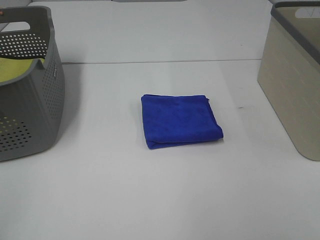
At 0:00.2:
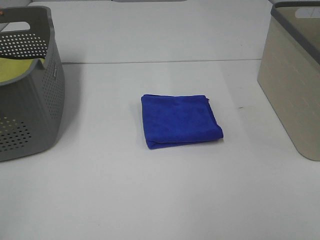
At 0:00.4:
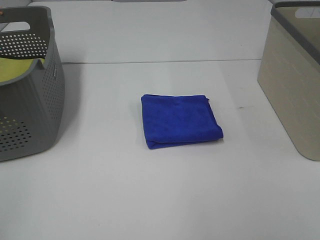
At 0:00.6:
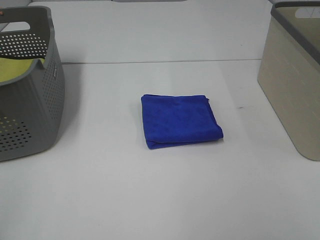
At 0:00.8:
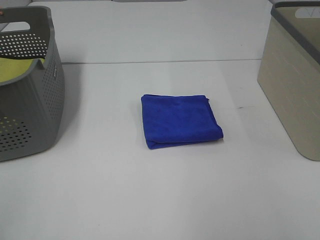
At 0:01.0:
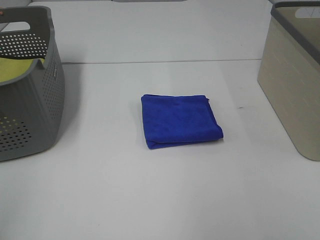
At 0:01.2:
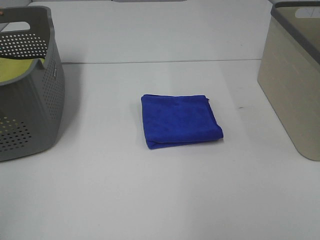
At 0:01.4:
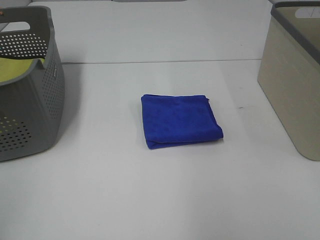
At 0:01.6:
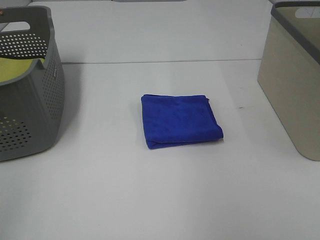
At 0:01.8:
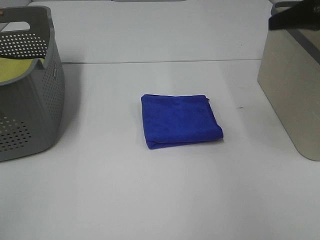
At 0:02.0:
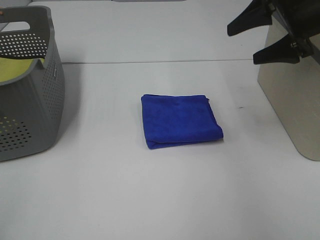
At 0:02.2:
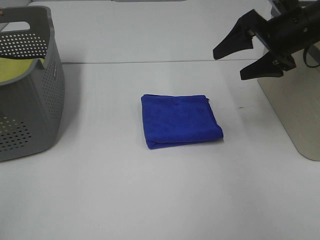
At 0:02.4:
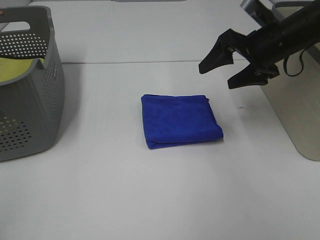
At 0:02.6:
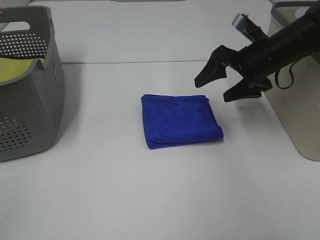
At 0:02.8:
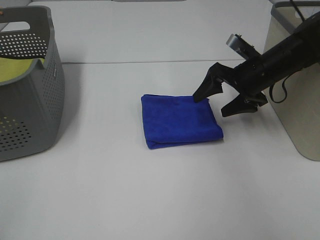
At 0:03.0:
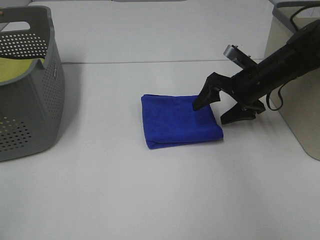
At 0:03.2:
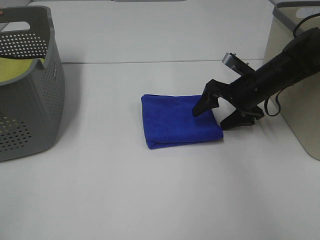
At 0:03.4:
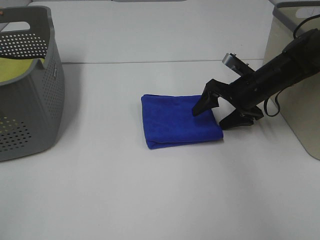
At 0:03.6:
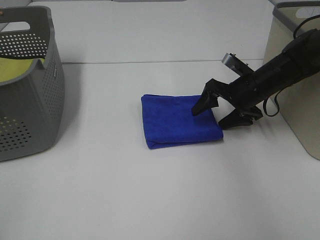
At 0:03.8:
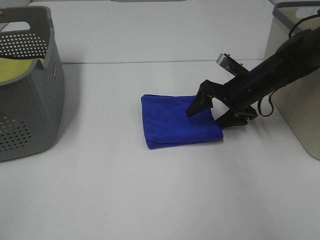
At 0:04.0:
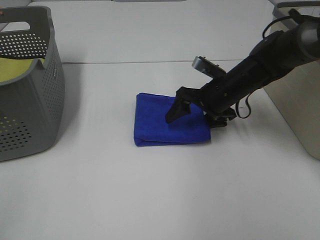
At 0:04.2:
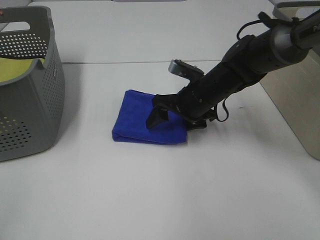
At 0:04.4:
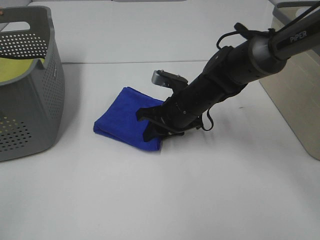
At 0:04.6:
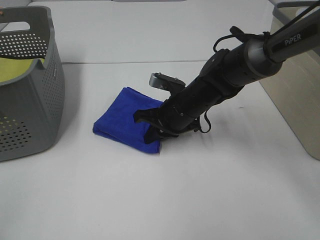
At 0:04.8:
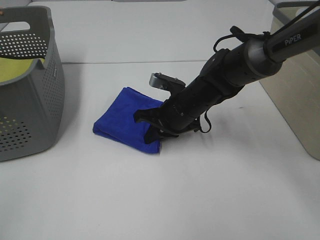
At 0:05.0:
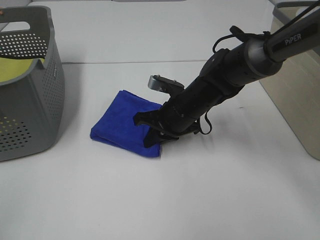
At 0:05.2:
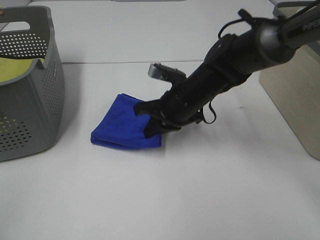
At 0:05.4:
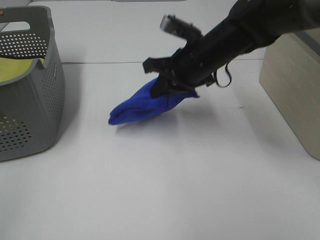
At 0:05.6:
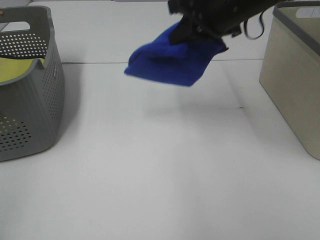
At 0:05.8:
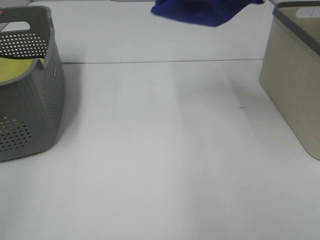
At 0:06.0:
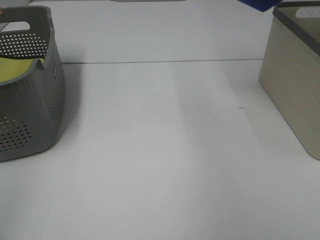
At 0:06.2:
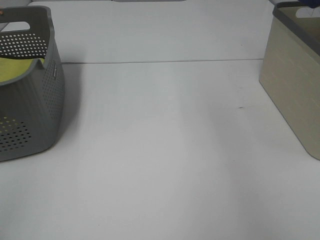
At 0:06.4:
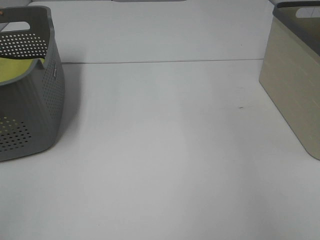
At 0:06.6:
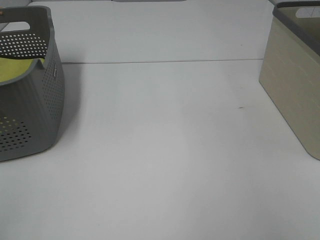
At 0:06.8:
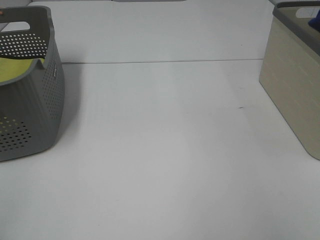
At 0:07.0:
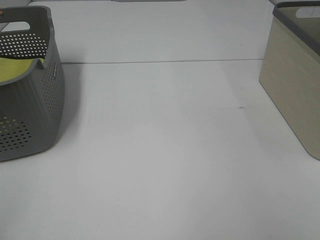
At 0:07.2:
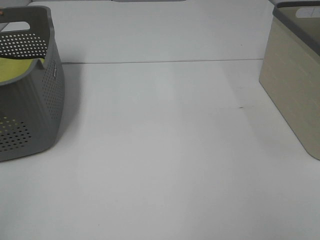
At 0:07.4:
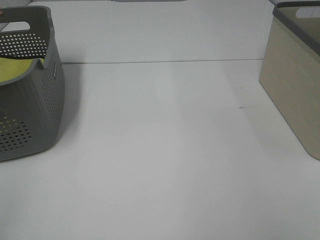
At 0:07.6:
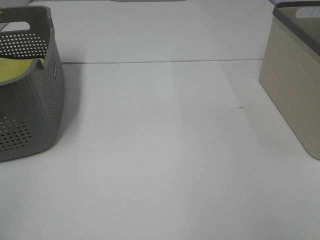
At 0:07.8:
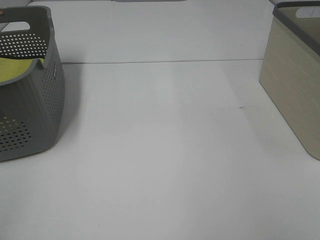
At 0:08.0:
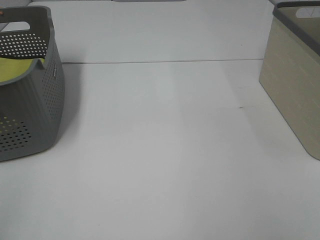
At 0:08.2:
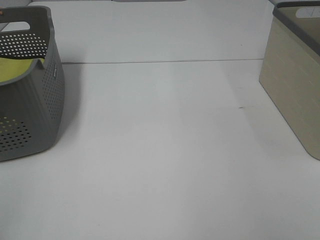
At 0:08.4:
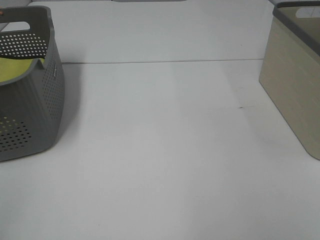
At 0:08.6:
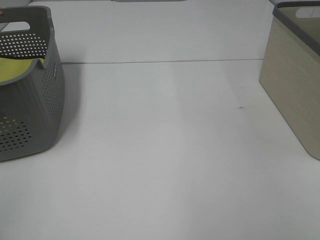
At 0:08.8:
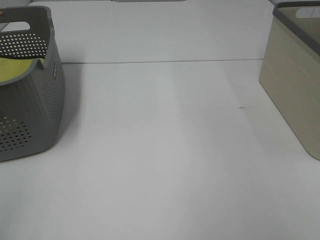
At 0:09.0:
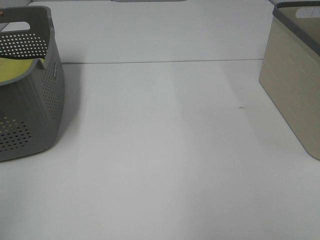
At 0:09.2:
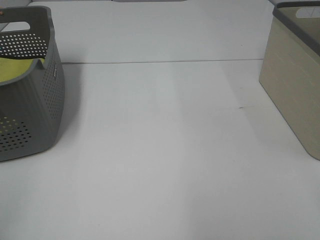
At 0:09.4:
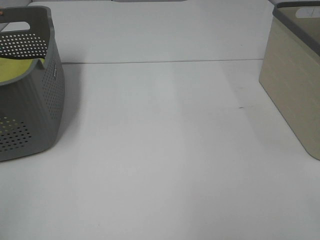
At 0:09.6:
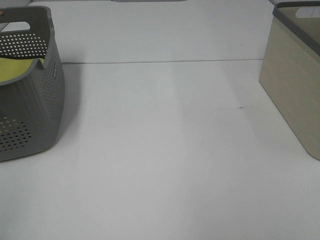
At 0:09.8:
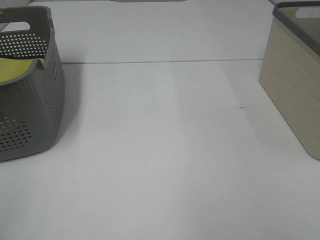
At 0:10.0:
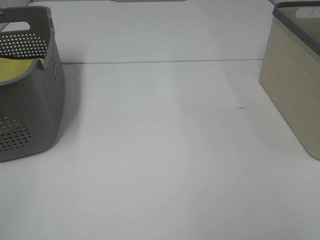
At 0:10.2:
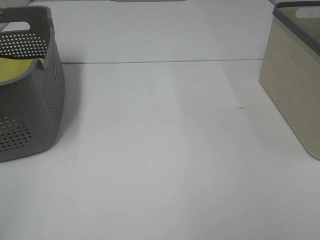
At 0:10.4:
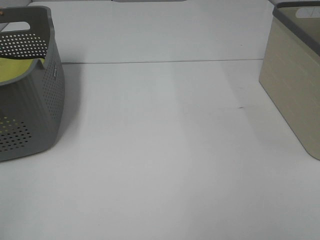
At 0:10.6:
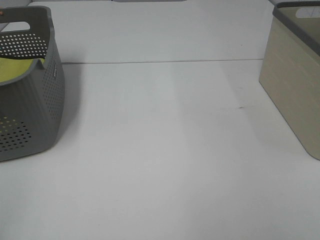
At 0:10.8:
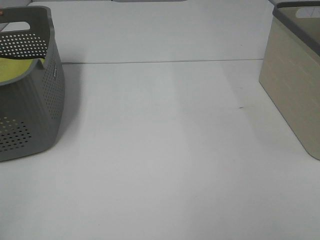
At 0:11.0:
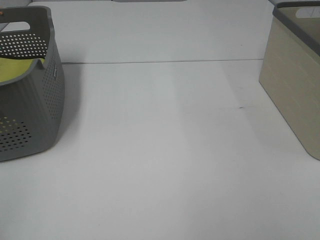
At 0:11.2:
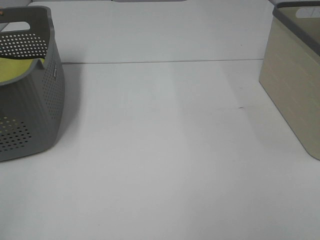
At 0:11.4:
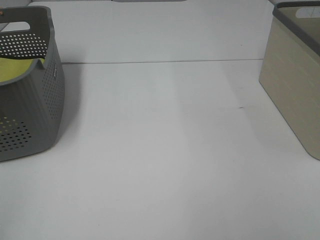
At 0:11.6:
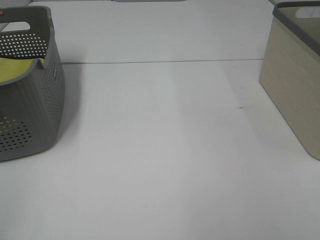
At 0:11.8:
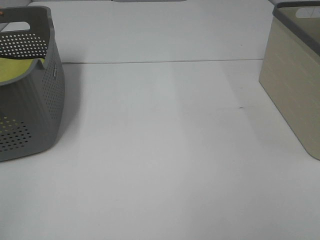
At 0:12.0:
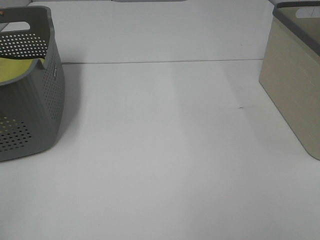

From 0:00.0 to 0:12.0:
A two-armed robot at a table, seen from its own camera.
Step, from 0:00.0 to 0:04.4: Right hand: grab the folded blue towel.
Step, from 0:04.6 to 0:08.4: Right hand: place the blue towel in right basket.
From 0:01.6 to 0:03.0: The right gripper shifts approximately 30 cm downward and forward.
From 0:03.0 to 0:04.4: The right gripper shifts about 15 cm to the left, and closes.
From 0:04.4 to 0:06.0: The right gripper moves upward and to the right, roughly 35 cm.
From 0:06.0 to 0:07.6: The right gripper shifts roughly 20 cm downward and to the right.
From 0:10.4 to 0:12.0: Both grippers stay about where they are.

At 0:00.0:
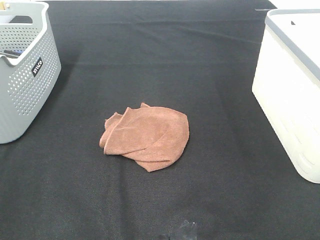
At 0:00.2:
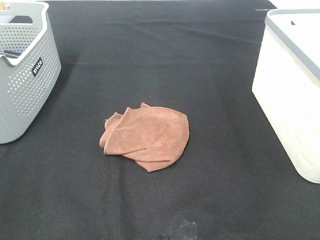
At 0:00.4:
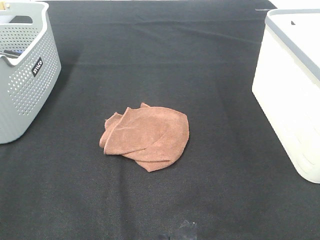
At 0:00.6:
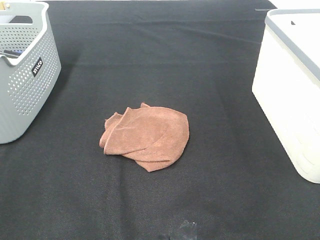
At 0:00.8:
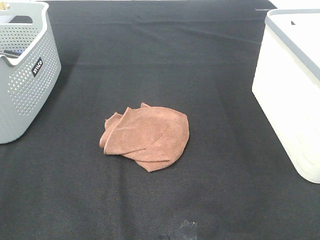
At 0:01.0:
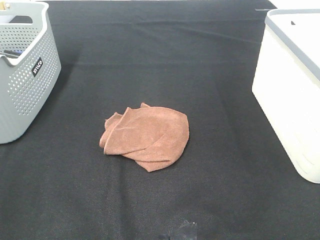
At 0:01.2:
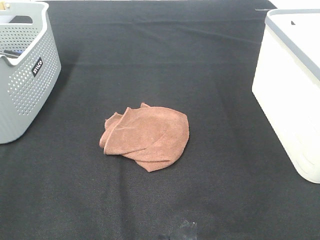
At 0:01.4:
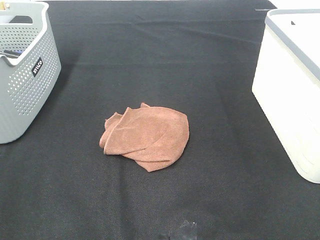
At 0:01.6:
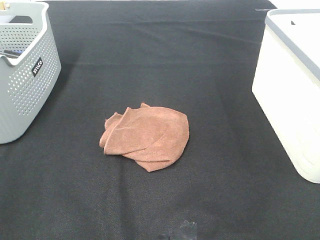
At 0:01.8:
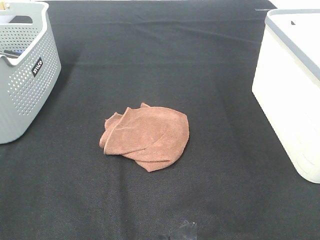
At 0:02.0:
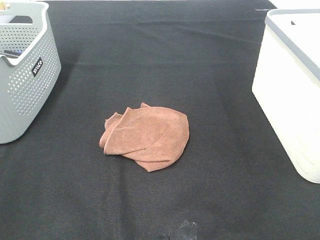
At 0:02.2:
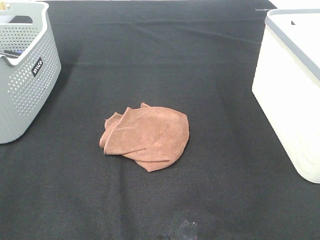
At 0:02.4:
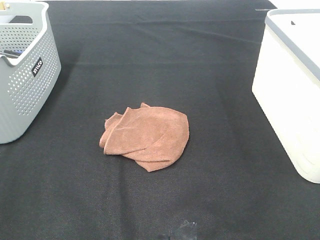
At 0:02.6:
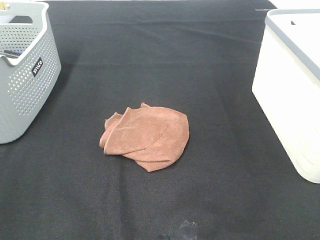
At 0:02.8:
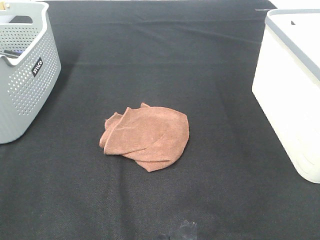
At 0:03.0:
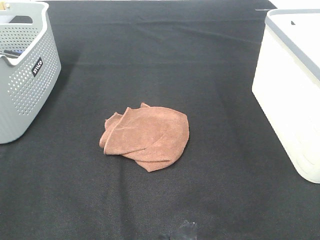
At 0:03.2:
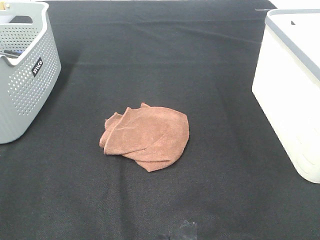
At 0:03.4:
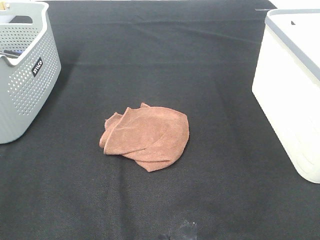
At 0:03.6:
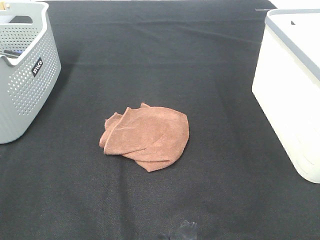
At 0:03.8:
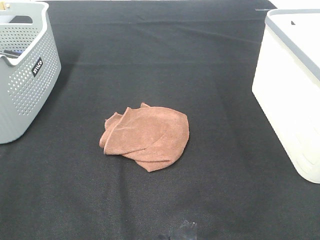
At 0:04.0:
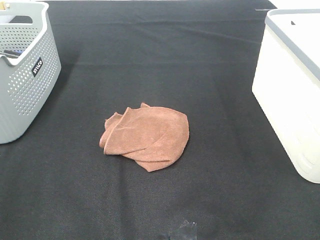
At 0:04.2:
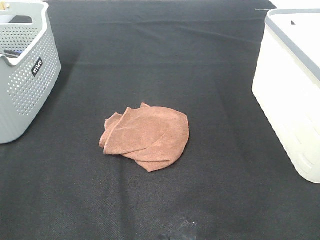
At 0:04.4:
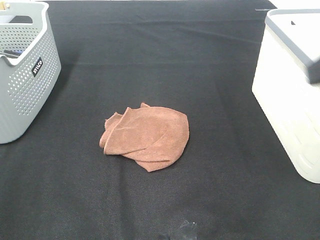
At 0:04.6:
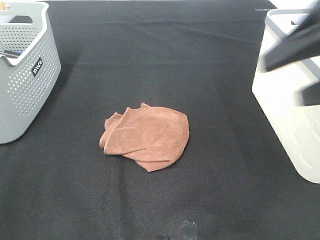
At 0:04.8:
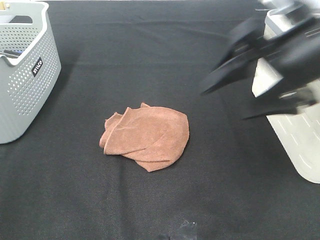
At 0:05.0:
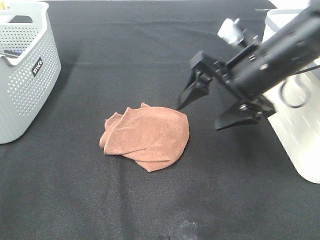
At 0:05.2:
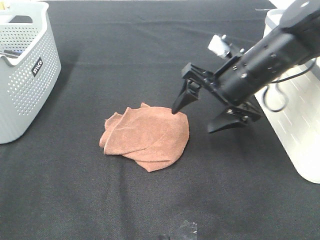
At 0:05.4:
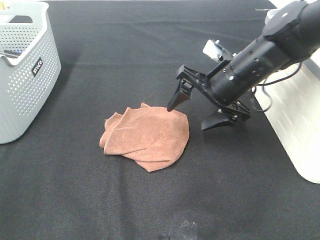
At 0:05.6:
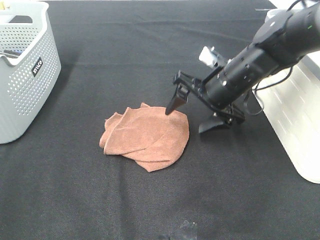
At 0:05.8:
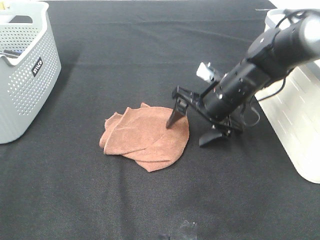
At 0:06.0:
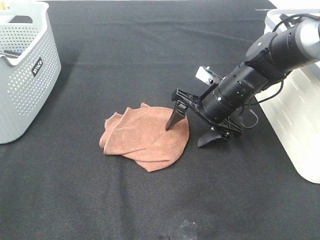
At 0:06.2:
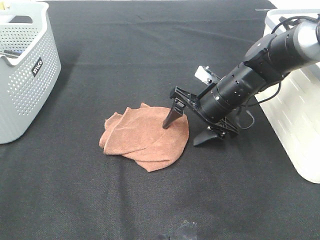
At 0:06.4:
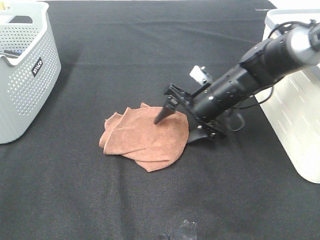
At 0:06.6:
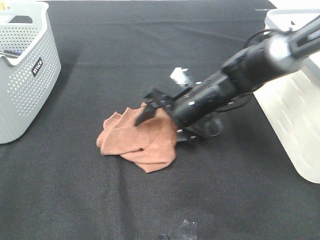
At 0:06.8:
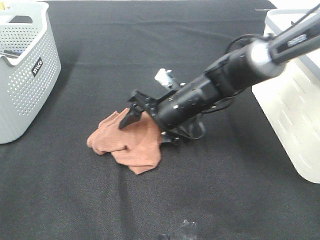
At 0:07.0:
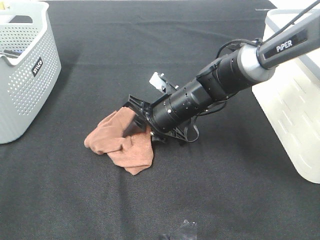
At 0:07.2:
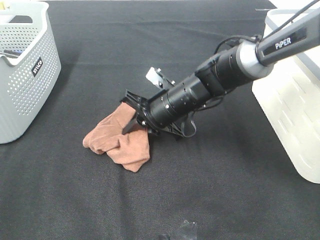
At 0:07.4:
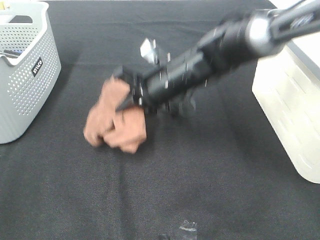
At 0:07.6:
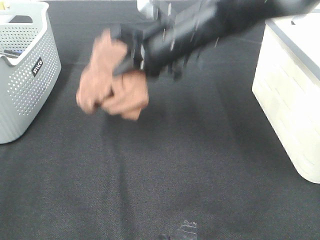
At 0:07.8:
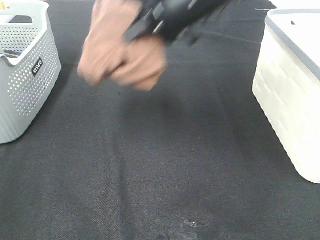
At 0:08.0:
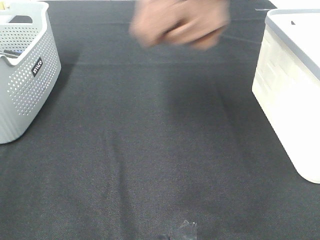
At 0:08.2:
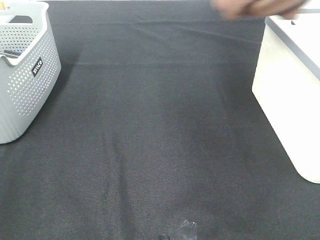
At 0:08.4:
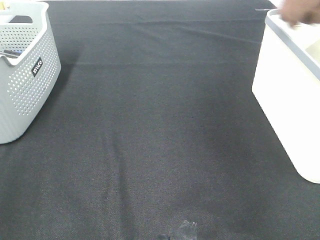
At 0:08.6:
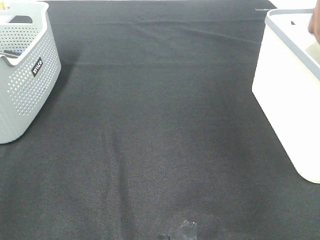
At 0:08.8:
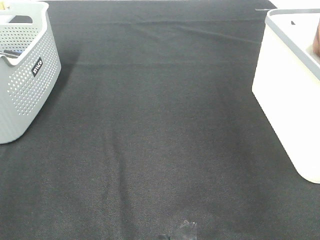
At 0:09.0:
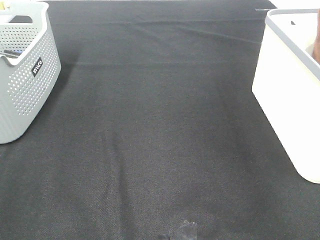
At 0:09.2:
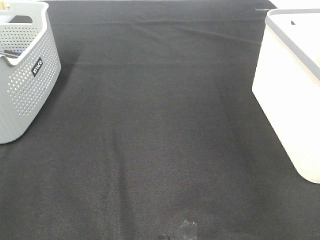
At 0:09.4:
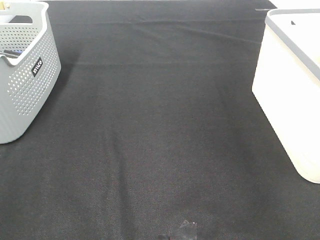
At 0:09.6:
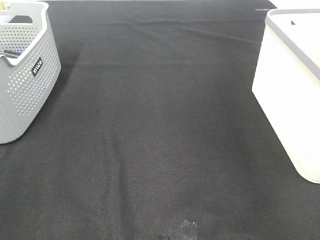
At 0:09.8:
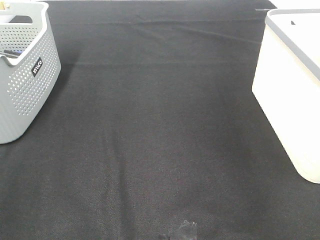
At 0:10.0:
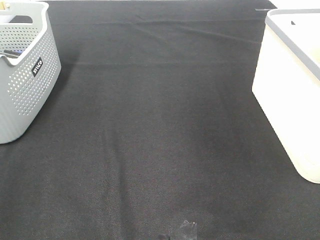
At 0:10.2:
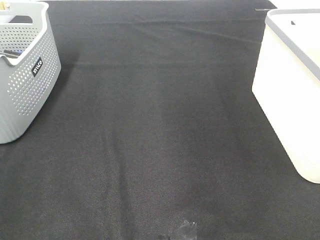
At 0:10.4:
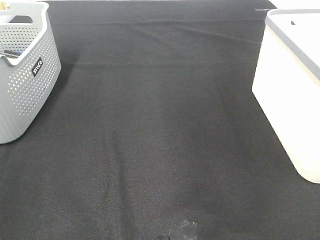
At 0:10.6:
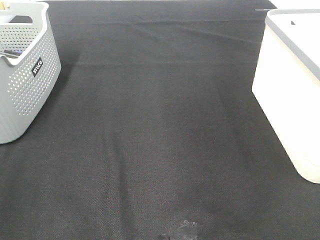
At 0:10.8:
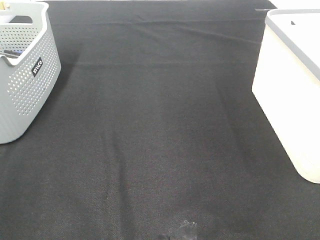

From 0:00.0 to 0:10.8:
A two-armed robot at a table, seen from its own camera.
Step, from 0:00.0 to 0:07.0: Right hand: grab the folded brown towel.
Step, from 0:07.2 to 0:09.2: Right hand: place the brown towel in right basket.
From 0:00.0 to 0:03.0: Both grippers stay put.
From 0:03.0 to 0:04.6: The right gripper is displaced forward by approximately 20 cm.
From 0:04.6 to 0:06.2: The right gripper is displaced downward, forward and to the left by roughly 25 cm.
From 0:06.2 to 0:07.8: The right gripper heads upward, covering roughly 20 cm, and closes.
From 0:07.8 to 0:09.2: The right gripper goes approximately 30 cm to the right, and opens.
